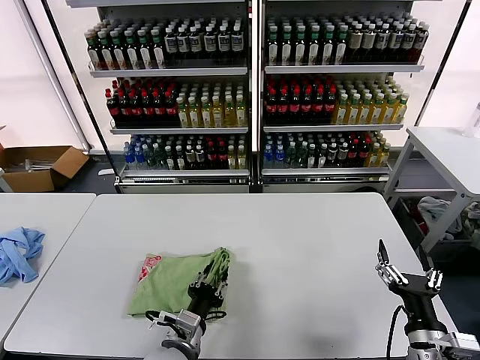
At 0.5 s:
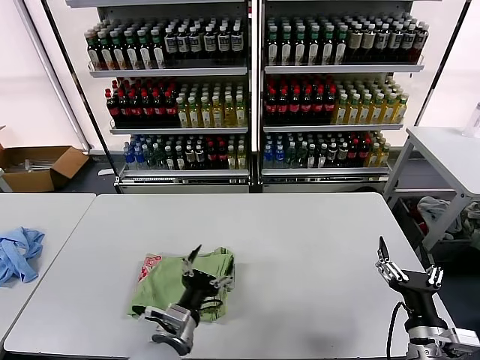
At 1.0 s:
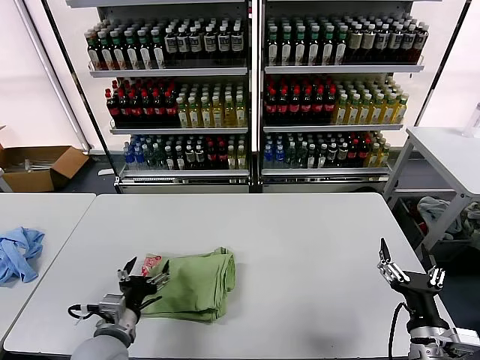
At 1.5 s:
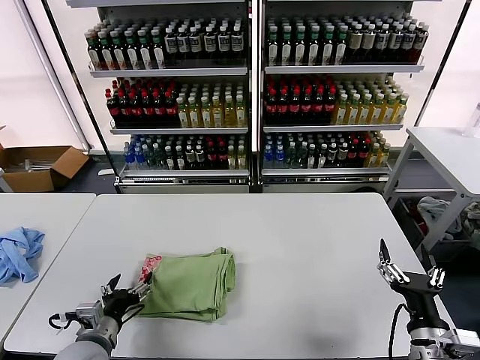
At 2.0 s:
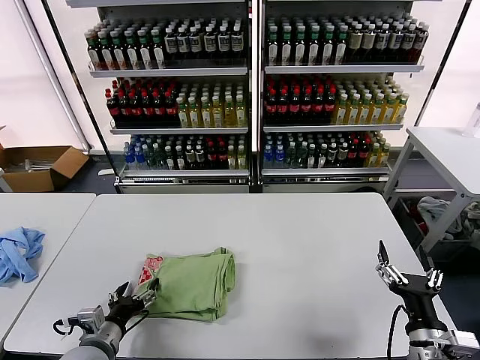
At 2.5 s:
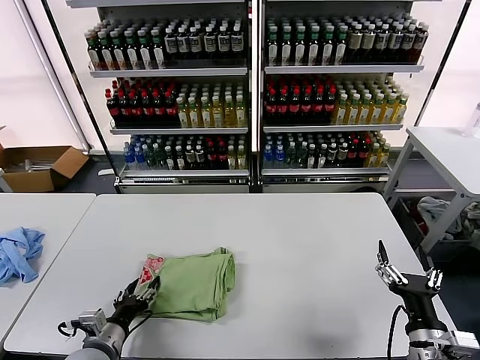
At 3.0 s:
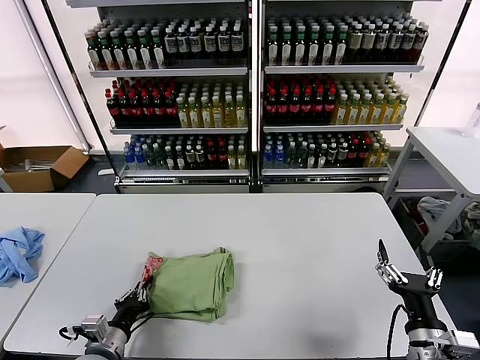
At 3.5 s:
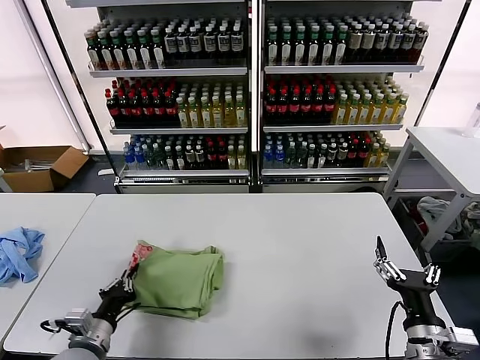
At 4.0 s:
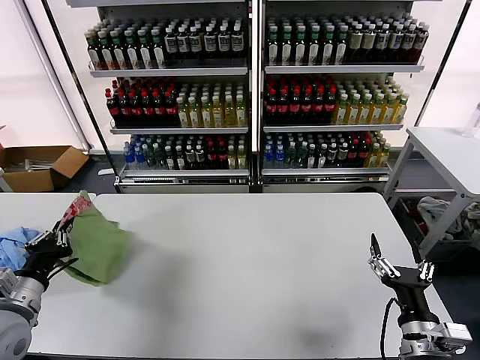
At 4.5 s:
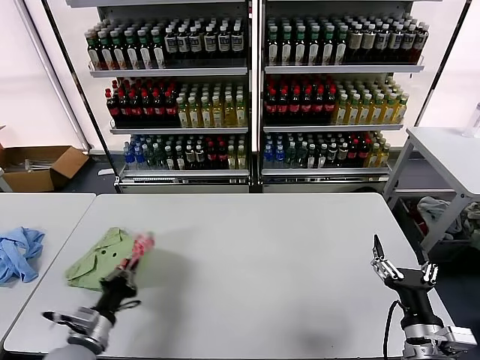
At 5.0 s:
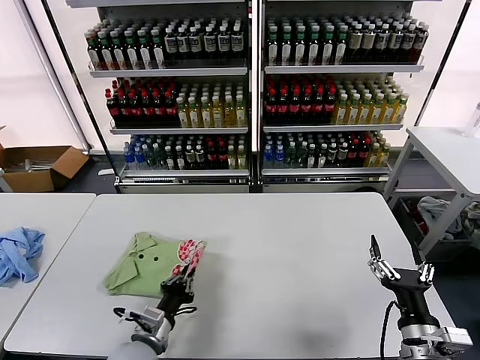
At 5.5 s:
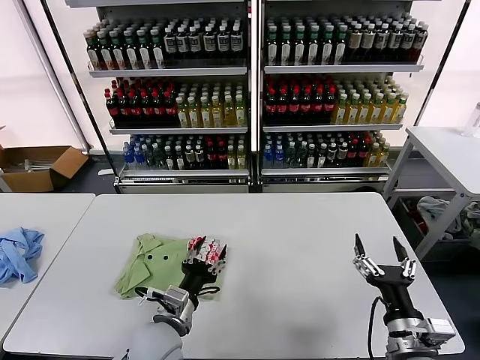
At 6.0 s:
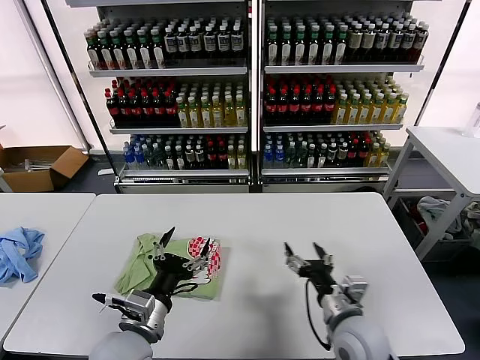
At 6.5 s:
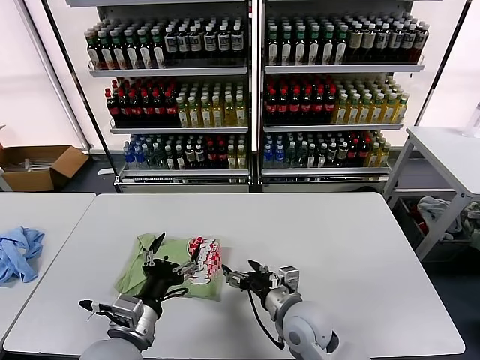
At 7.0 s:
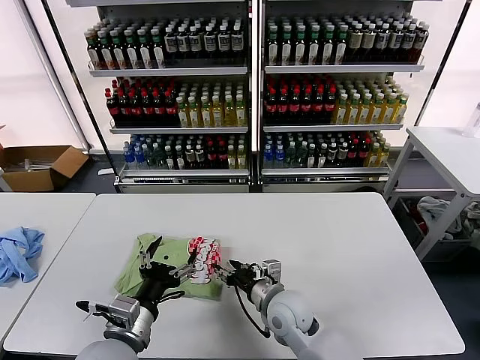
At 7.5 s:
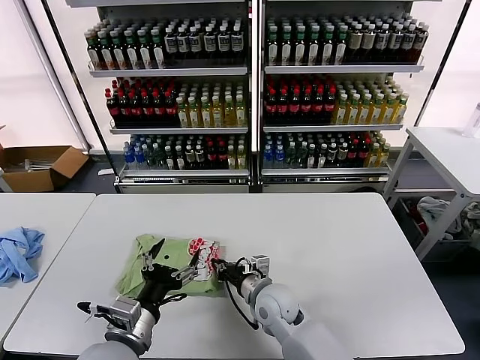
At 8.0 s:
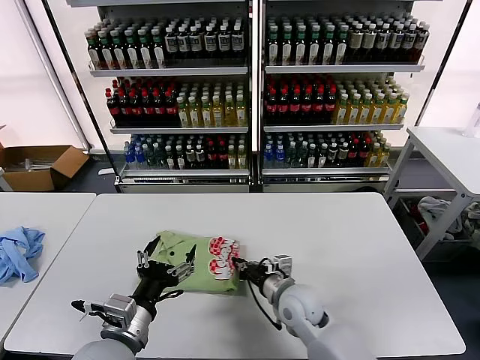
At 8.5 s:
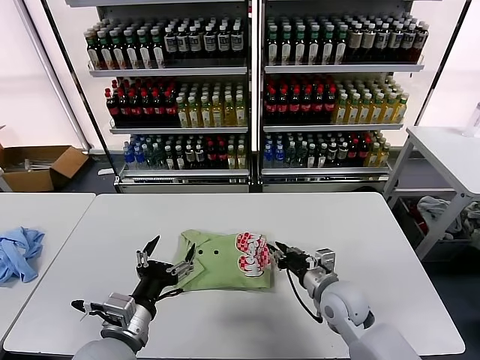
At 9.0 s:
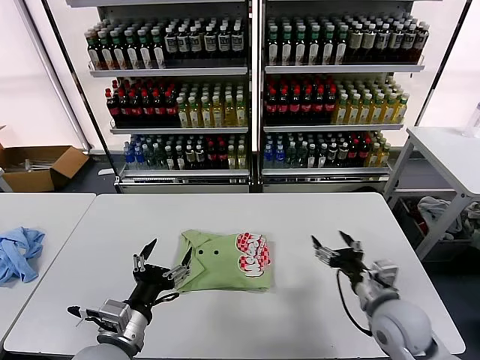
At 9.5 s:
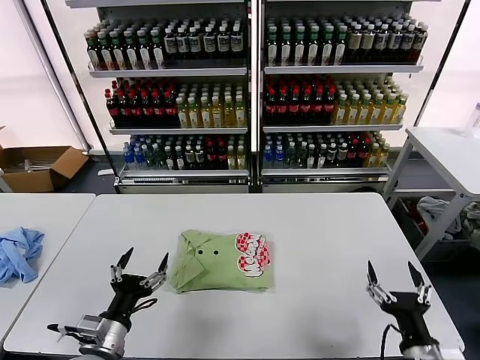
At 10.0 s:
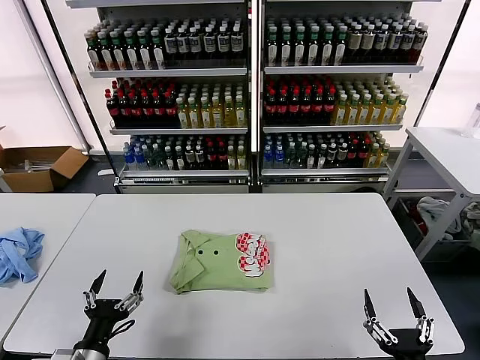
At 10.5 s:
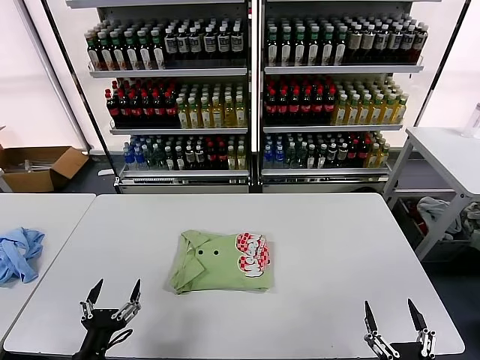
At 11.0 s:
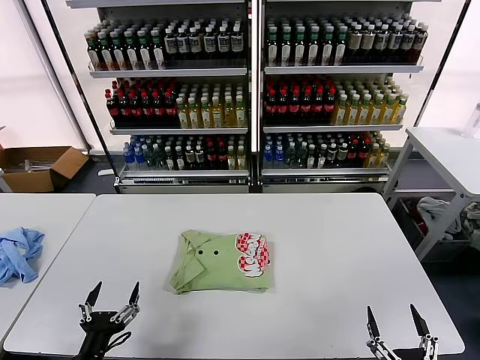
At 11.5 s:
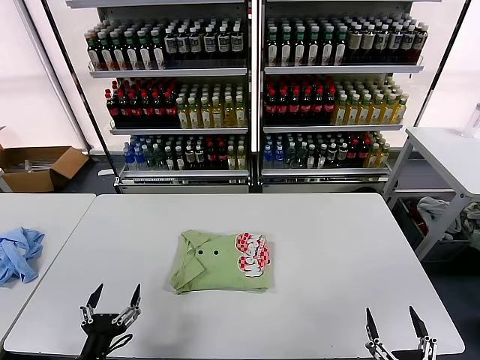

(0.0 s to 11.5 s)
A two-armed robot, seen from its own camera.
Task of the whole recording: fold and organize the clothes.
Step, 0.5 s - 5.0 s: Flip the folded clothes over with left gripper.
Step, 5.5 s - 8.0 s: Drag the clothes to the center of the table.
0.0 s - 2.0 s: The left gripper moves to the left, roughly 15 cm, and opens its fingers.
2.0 s - 4.0 s: The left gripper goes about 15 cm upward and to the left, and closes up.
4.0 s - 6.0 s: The left gripper moves to the right, some 20 cm, and opens, while the right gripper goes roughly 10 cm to the left and forward.
6.0 s - 7.5 s: The right gripper travels to the left and forward by approximately 20 cm, and closes.
7.5 s - 9.5 s: The left gripper shifts by roughly 5 cm. The right gripper goes approximately 30 cm to the right and backward, and opens.
9.5 s - 11.5 s: The right gripper travels backward and downward by some 15 cm. Meanwhile the left gripper travels backward by approximately 5 cm.

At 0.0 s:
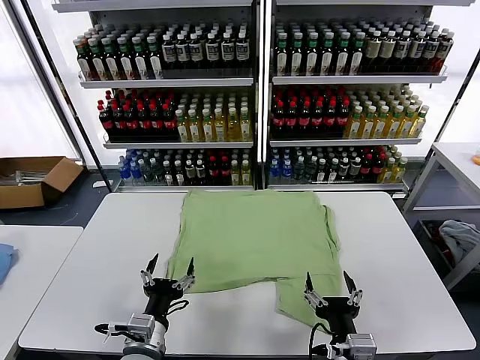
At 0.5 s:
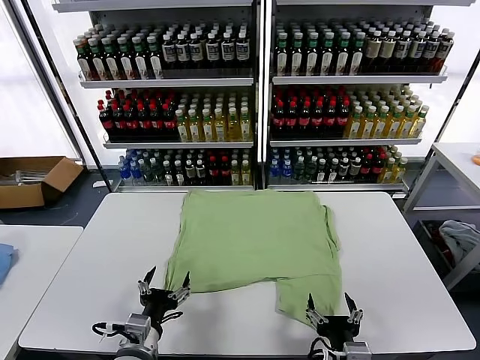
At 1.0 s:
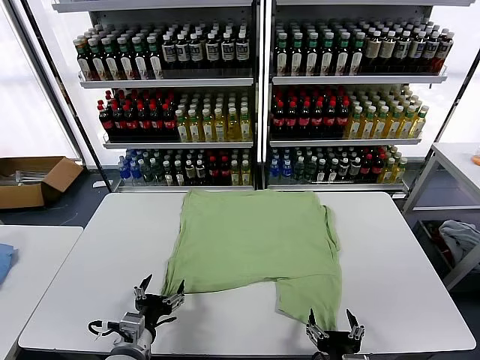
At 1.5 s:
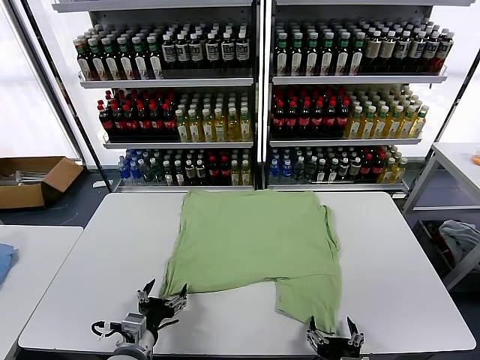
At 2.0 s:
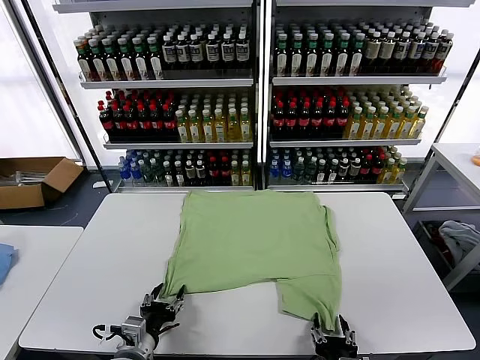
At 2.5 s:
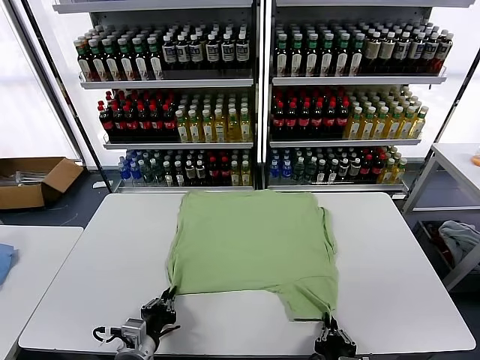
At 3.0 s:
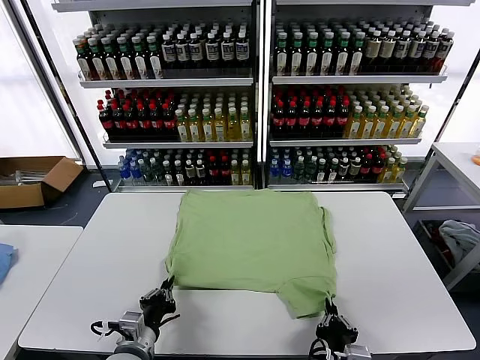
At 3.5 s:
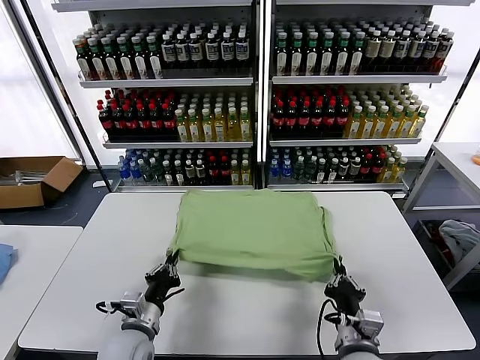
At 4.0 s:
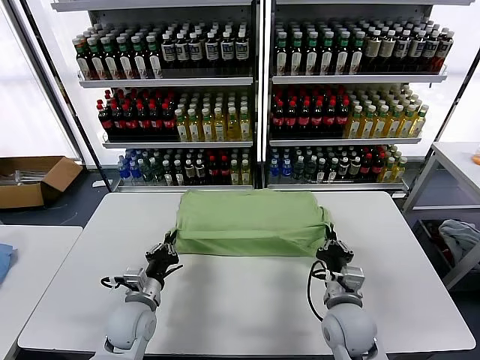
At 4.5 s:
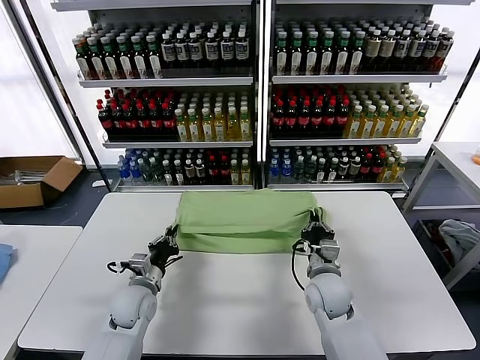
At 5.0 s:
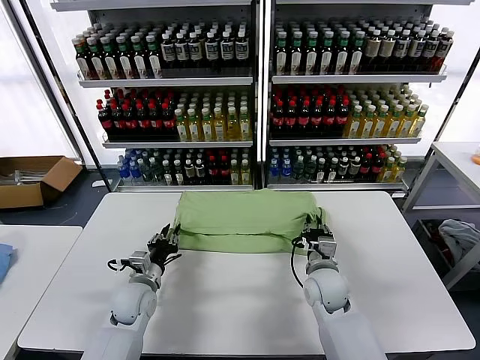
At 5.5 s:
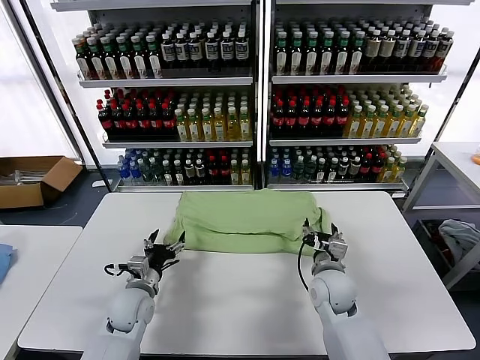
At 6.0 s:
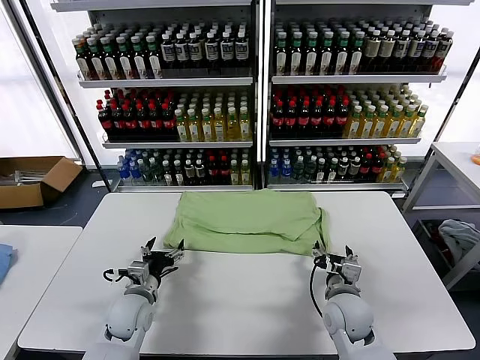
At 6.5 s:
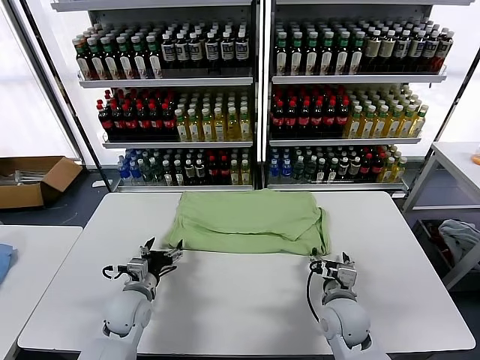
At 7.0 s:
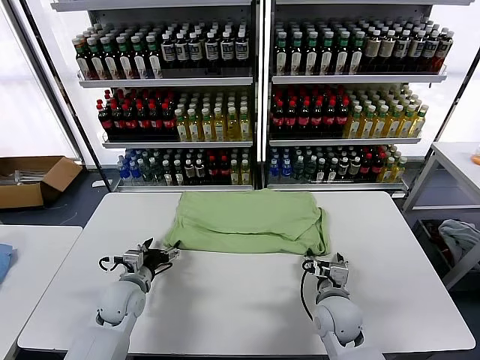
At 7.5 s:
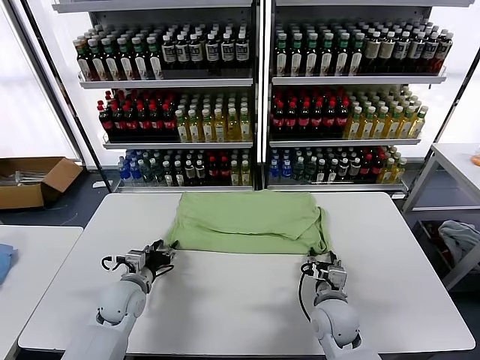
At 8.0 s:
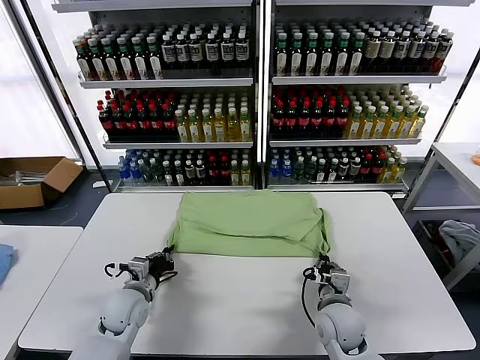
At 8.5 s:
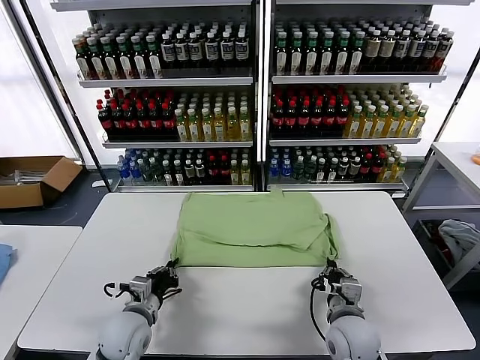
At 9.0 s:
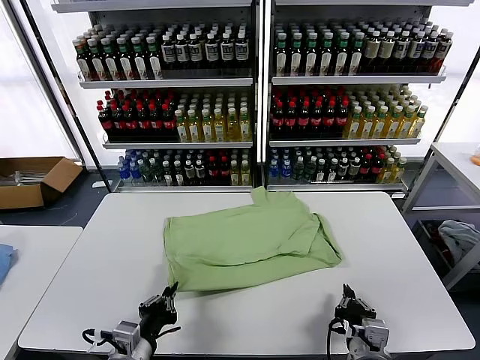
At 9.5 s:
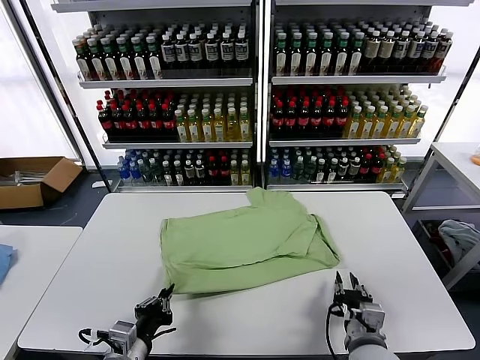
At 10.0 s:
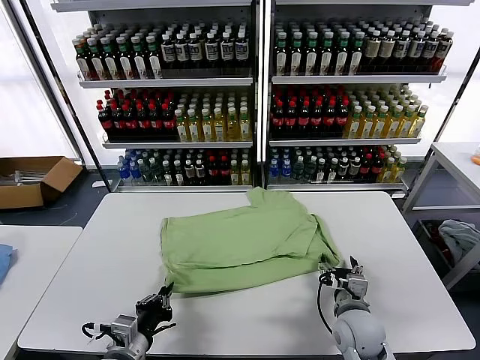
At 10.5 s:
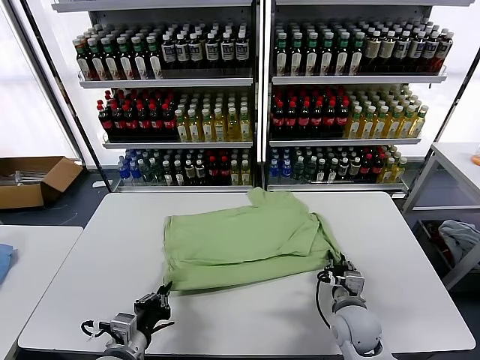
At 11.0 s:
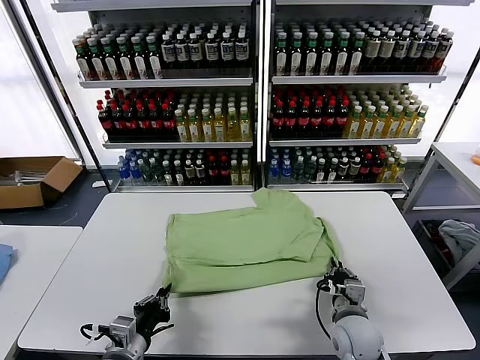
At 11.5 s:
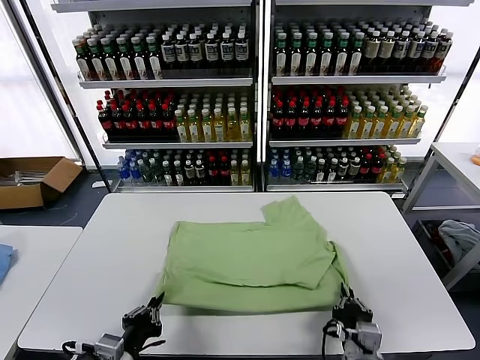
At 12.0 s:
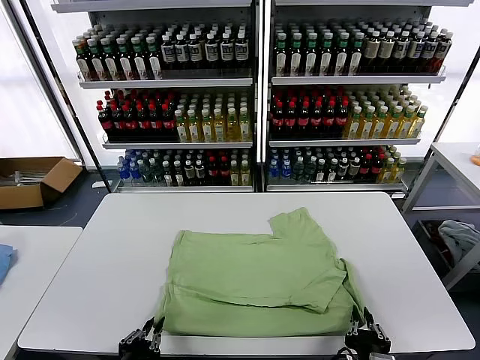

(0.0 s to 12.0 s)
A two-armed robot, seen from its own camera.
Task of the whole recording: fold and organize the clothes.
Step, 0.0 s - 2.5 s: use both grippers simultaneously to clamp the lower edge of the clothing fabric.
Step, 3.0 s - 5.0 s: use both grippers to drag the lower edge of the fabric forward and fold it over the upper edge.
2.0 s - 4.0 s: The right gripper is displaced forward by roughly 20 cm, and closes. The left gripper moves forward, about 10 cm, and closes up.
4.0 s - 6.0 s: The right gripper opens up; the left gripper opens.
6.0 s - 8.0 s: The left gripper closes up; the right gripper closes.
8.0 s - 10.0 s: The left gripper moves backward, some 15 cm. Meanwhile the right gripper moves approximately 15 cm backward and comes back, and opens its fingers.
10.0 s - 12.0 s: The right gripper shifts about 20 cm backward, and closes. Meanwhile the left gripper moves backward, some 10 cm.

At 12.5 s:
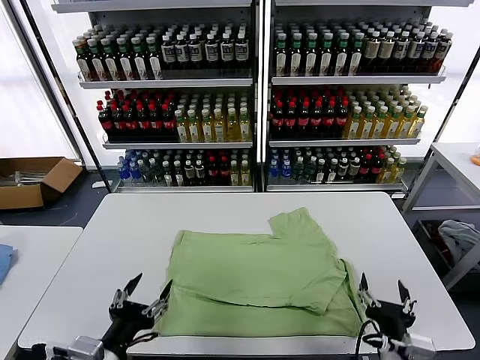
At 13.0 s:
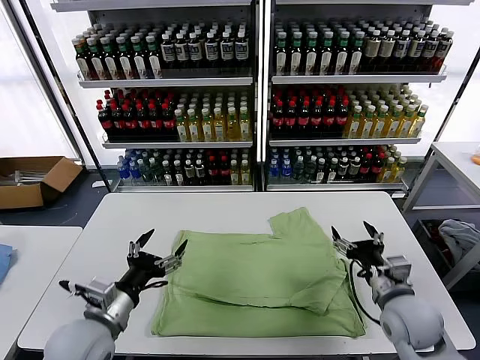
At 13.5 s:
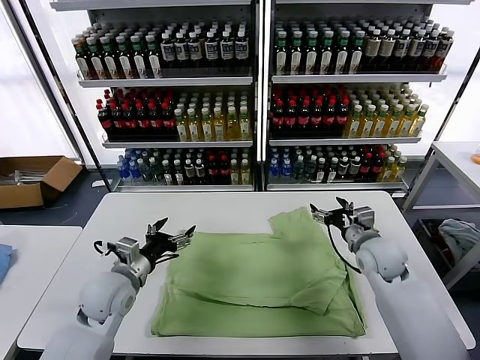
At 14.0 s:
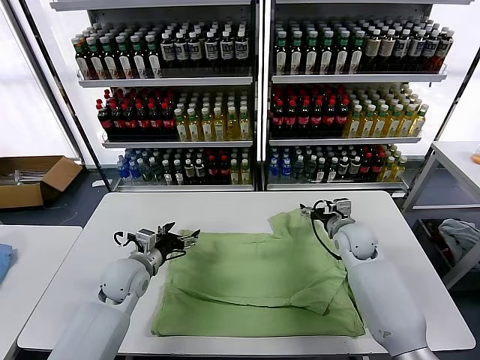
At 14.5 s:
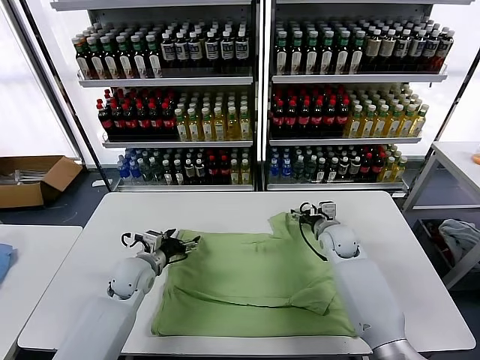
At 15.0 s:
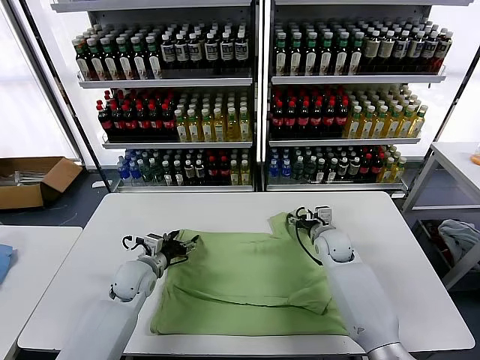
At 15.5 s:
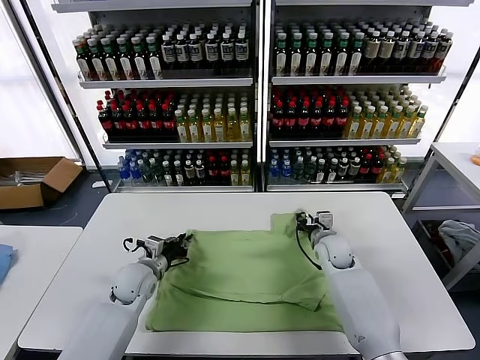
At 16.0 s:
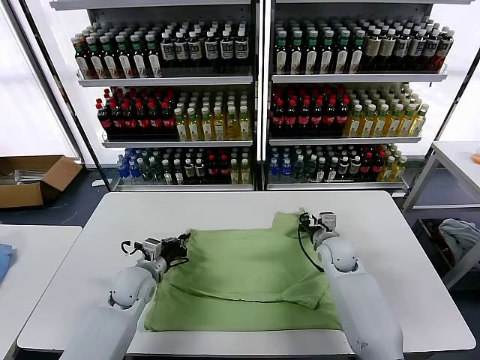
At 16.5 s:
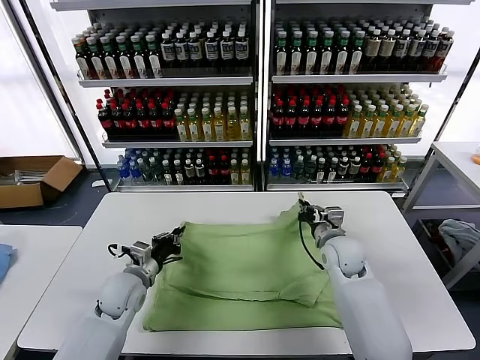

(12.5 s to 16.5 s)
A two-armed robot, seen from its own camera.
Task of the whole recording: fold and organize the clothes.
Step, 12.5 s - 15.5 s: use both grippers simultaneously to clamp the upper edge of the clothing fabric.
12.5 s - 14.5 s: Both grippers travel together forward, some 30 cm.
14.5 s - 16.5 s: The right gripper goes approximately 5 cm backward, and closes up. The left gripper closes its fingers.
